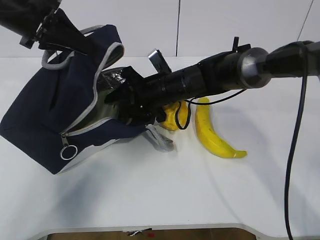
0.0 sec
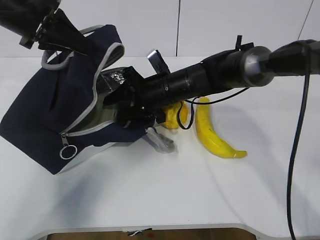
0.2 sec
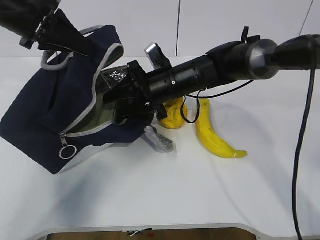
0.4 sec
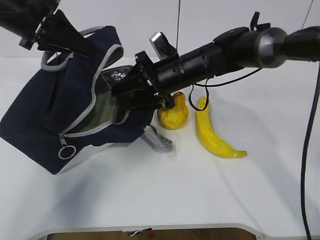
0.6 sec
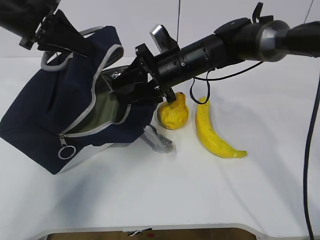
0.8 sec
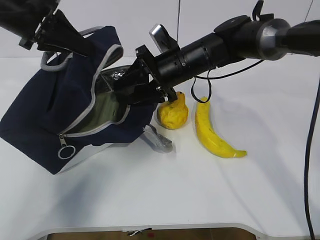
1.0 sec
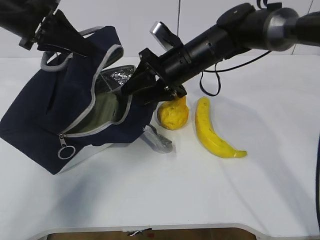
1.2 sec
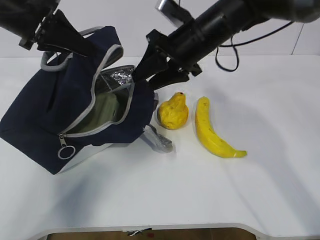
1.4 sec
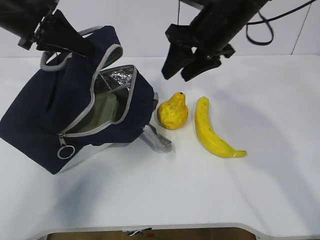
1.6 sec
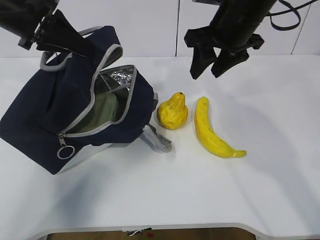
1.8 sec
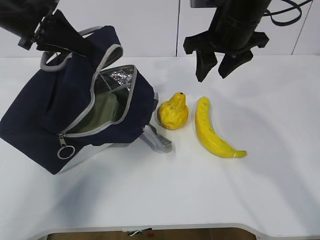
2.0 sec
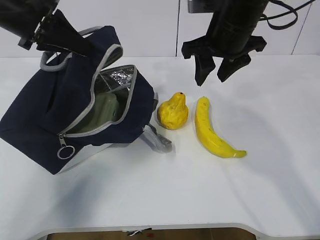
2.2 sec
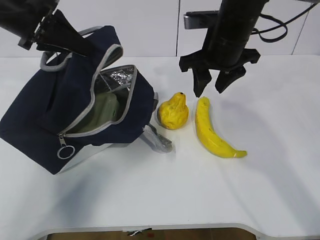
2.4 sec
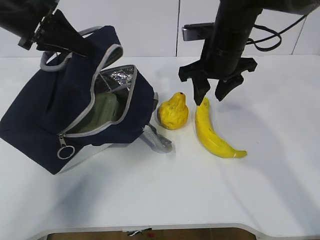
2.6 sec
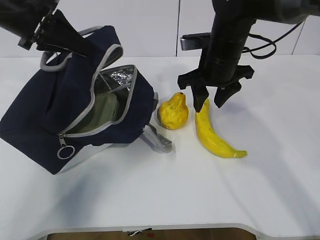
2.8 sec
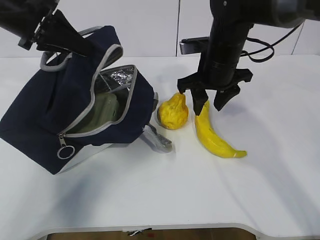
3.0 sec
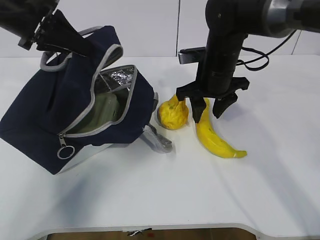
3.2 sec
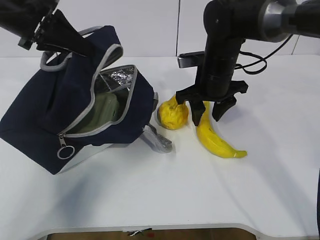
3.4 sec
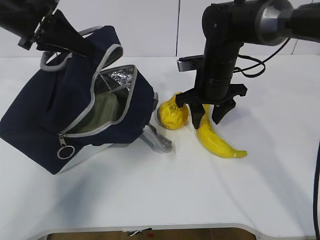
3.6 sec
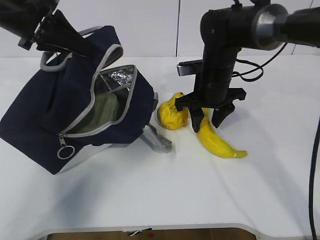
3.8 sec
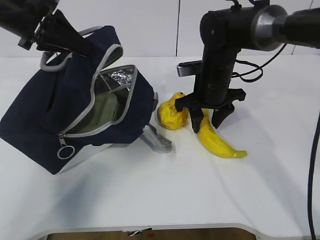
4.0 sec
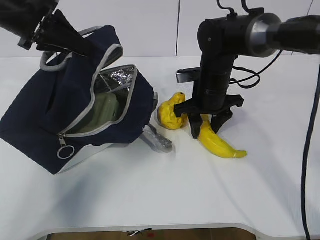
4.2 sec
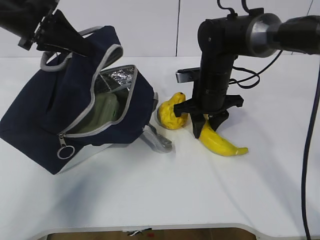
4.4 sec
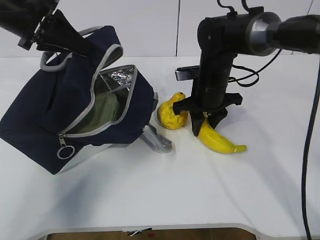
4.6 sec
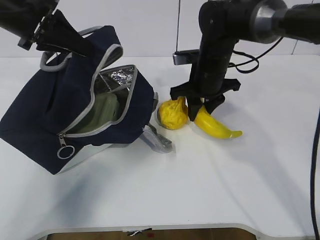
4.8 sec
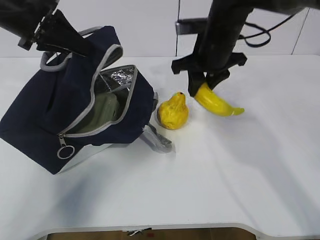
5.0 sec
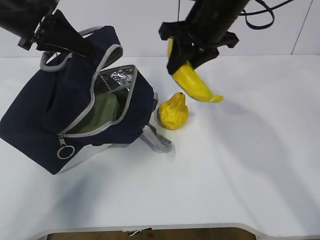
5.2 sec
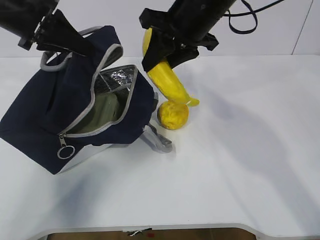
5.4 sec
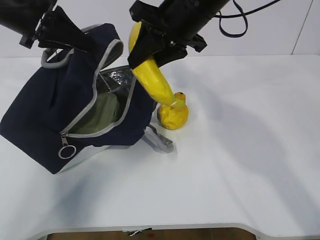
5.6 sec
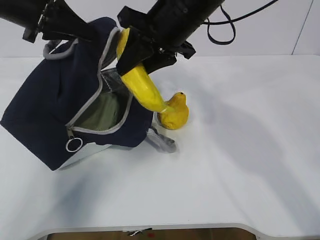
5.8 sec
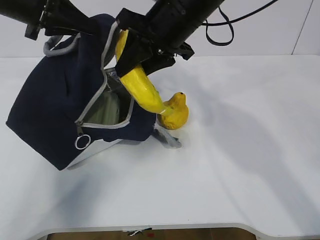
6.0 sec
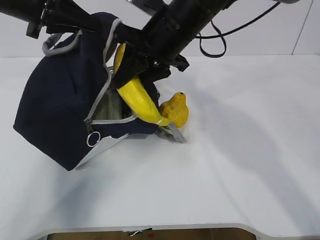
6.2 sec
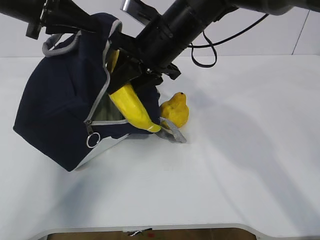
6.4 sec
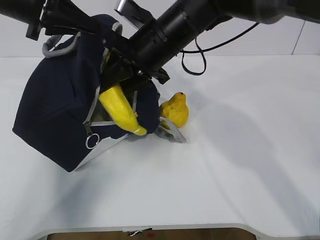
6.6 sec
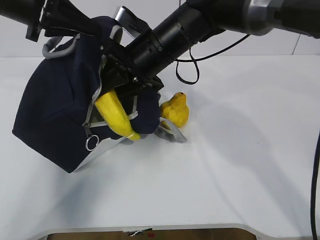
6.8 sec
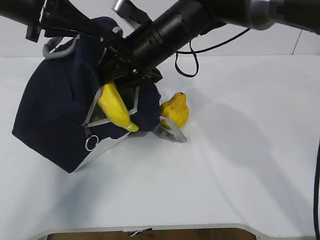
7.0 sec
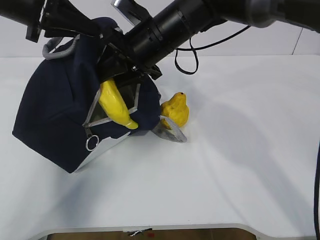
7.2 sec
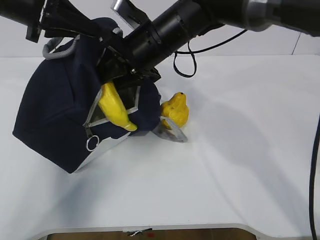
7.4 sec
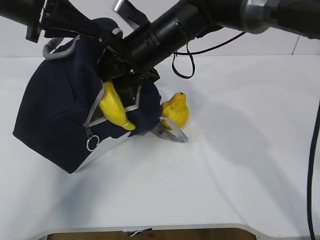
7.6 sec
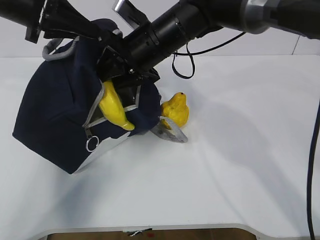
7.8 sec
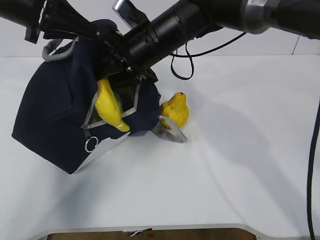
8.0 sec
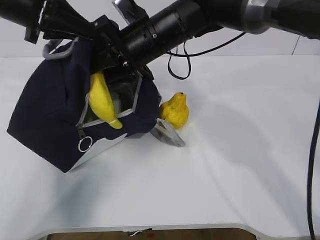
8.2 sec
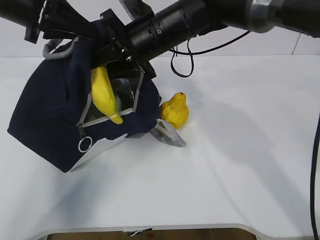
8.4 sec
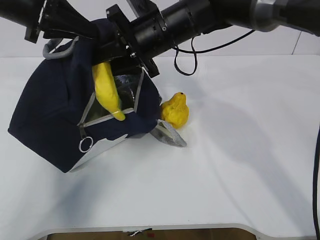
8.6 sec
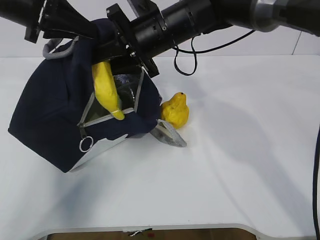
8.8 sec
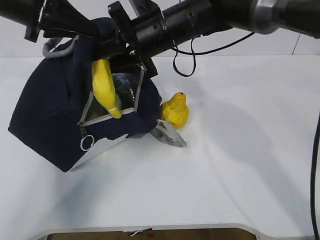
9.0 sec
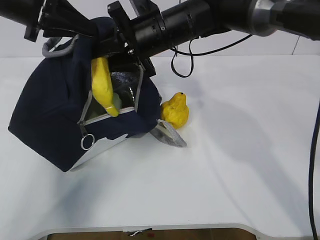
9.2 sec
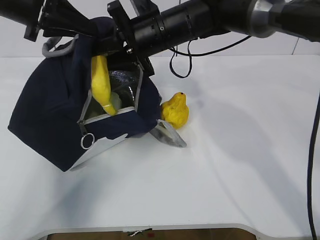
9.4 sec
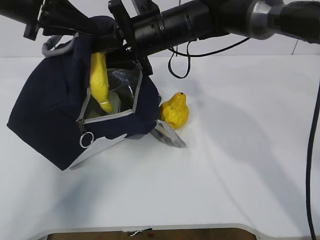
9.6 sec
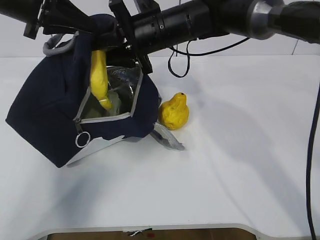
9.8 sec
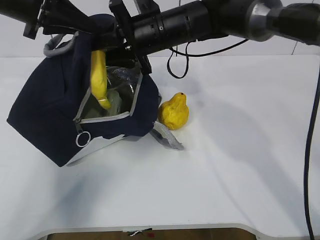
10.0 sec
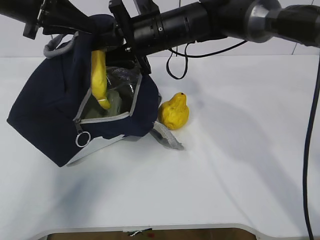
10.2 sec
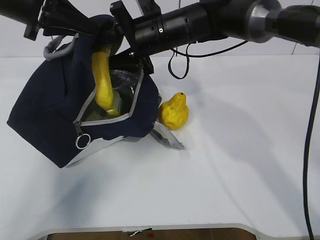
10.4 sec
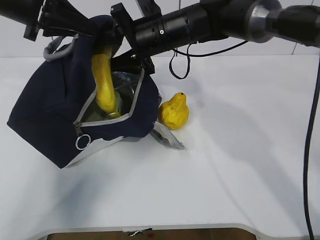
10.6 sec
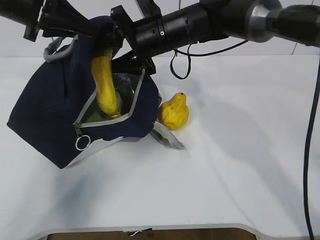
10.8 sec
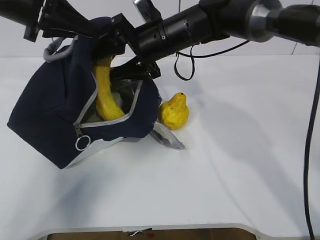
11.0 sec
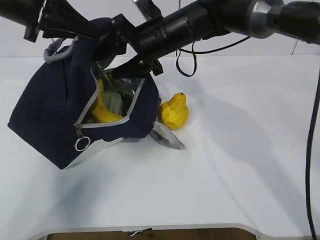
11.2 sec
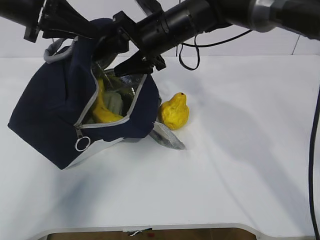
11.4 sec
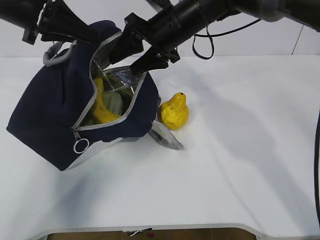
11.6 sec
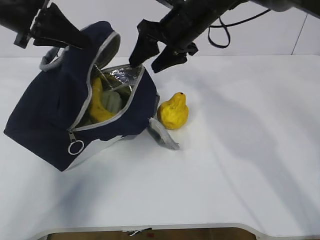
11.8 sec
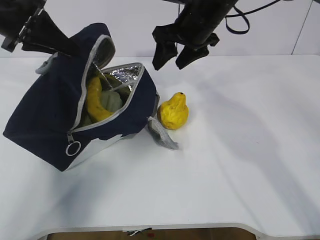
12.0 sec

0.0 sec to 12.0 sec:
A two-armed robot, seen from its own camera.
Step, 0.0 sec to 5.2 sec: Place it into the bag with your right hand.
Step, 5.4 sec to 8.2 sec: Grab the pear with your right hand.
Step, 8.4 sec to 9.8 sec: Secure the lunch bag with your left hand.
0.0 sec to 1.6 sec: The right gripper heads upward and to the right, covering about 15 cm.
1.6 sec to 3.0 sec: The right gripper travels downward by about 5 cm.
3.0 sec to 4.4 sec: The right gripper shifts approximately 5 cm downward.
4.4 sec to 6.0 sec: The right gripper goes approximately 15 cm upward and to the left.
6.0 sec to 7.6 sec: The right gripper travels downward by approximately 5 cm.
7.6 sec to 9.0 sec: The grippers stay close to where they were, moving slightly.
9.0 sec to 10.4 sec: The grippers move only a little.
10.4 sec to 12.0 sec: The right gripper goes roughly 5 cm to the right.

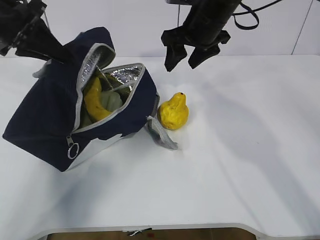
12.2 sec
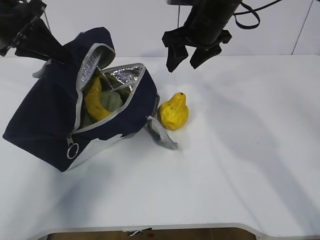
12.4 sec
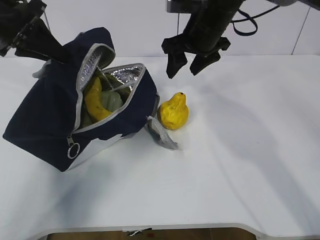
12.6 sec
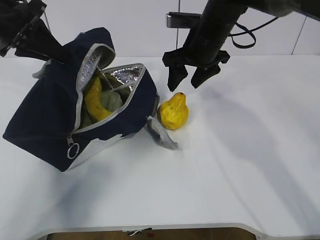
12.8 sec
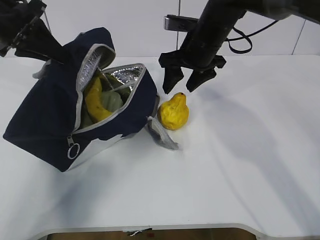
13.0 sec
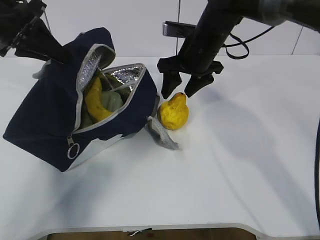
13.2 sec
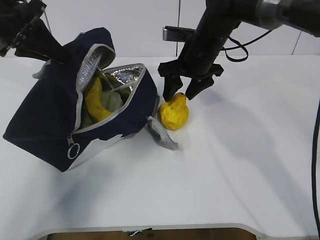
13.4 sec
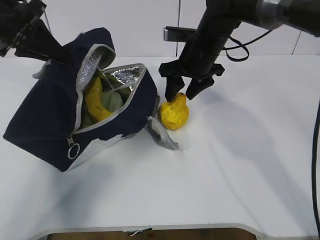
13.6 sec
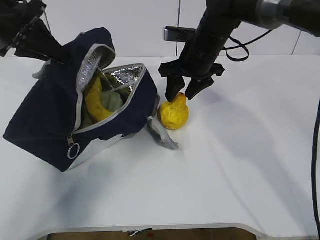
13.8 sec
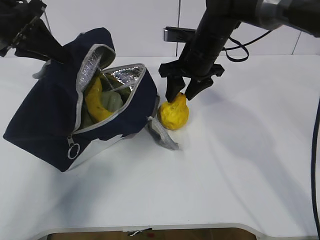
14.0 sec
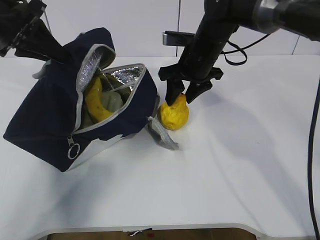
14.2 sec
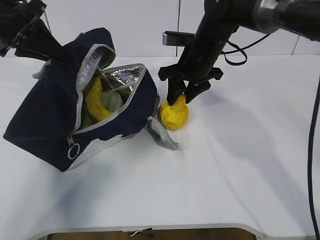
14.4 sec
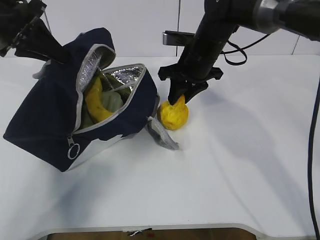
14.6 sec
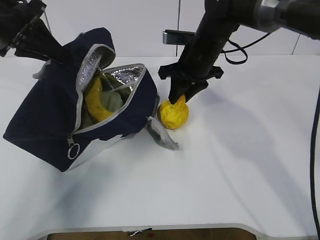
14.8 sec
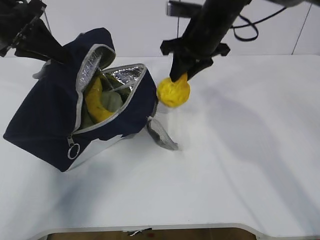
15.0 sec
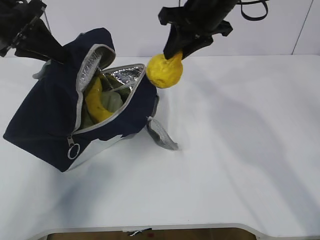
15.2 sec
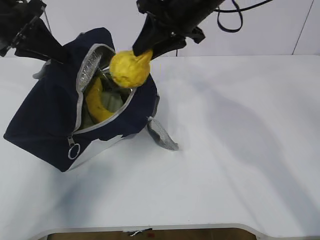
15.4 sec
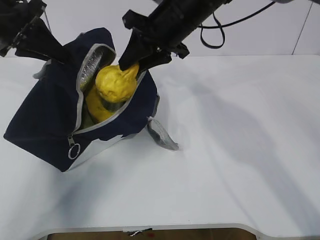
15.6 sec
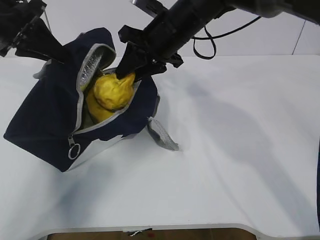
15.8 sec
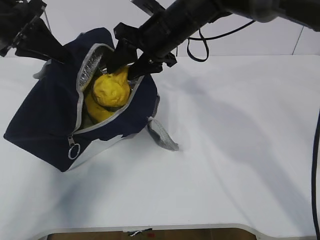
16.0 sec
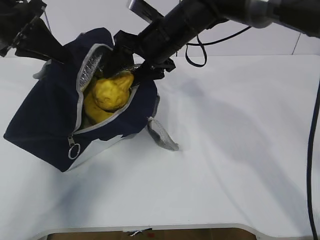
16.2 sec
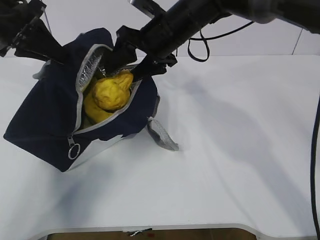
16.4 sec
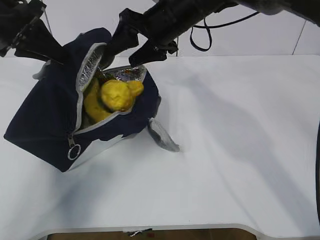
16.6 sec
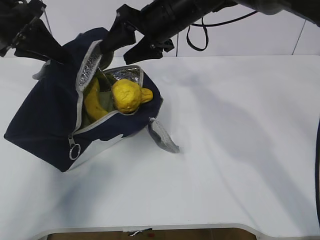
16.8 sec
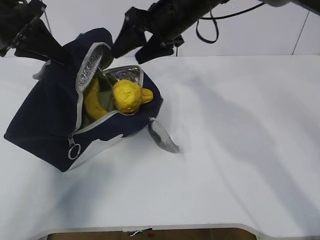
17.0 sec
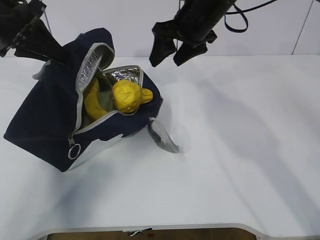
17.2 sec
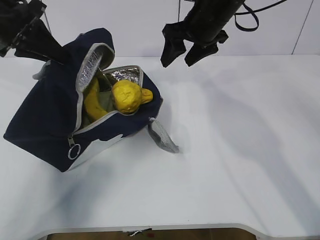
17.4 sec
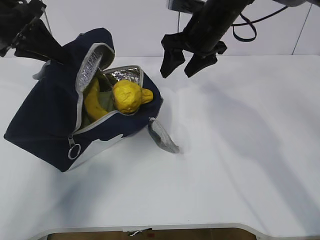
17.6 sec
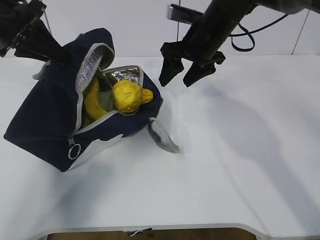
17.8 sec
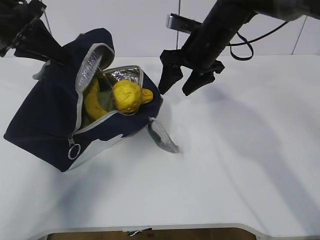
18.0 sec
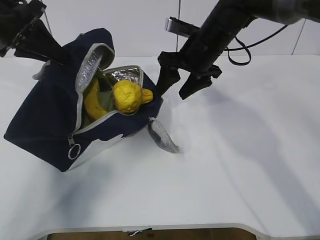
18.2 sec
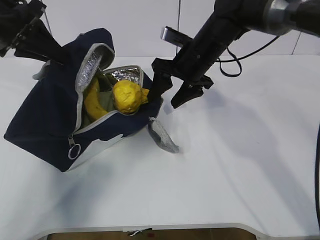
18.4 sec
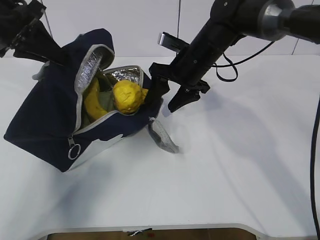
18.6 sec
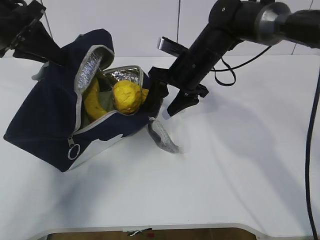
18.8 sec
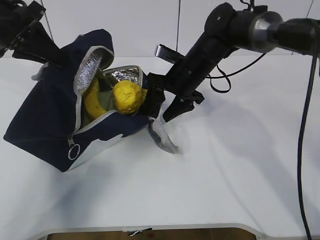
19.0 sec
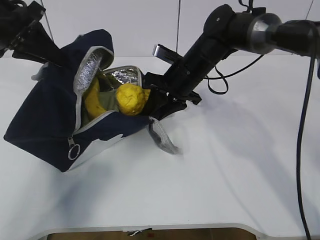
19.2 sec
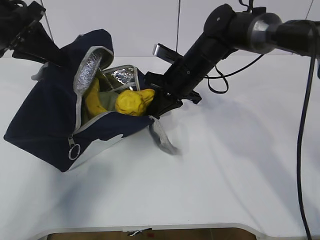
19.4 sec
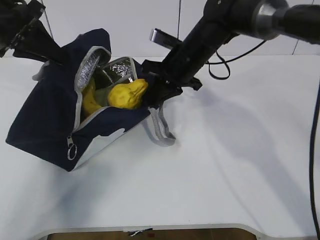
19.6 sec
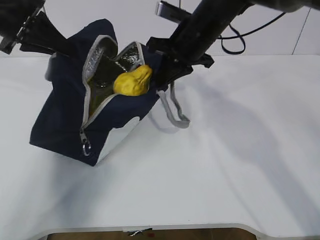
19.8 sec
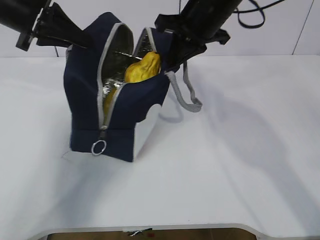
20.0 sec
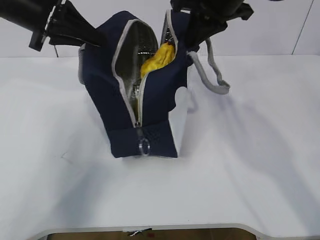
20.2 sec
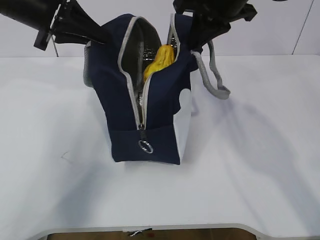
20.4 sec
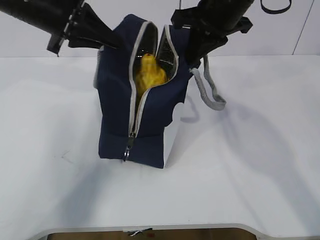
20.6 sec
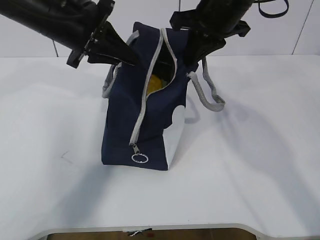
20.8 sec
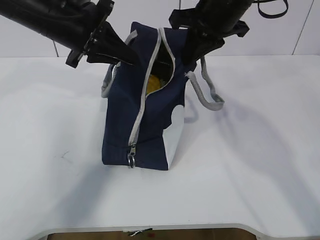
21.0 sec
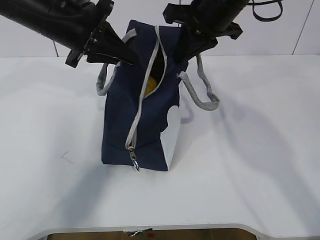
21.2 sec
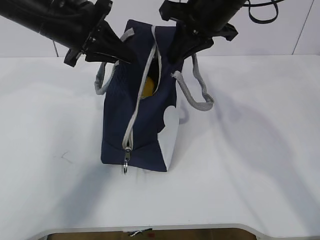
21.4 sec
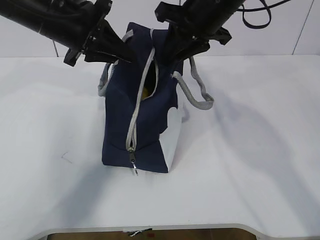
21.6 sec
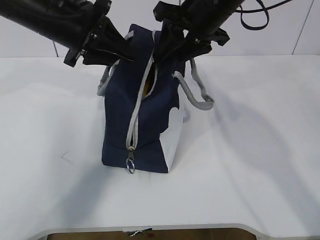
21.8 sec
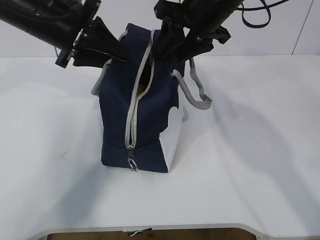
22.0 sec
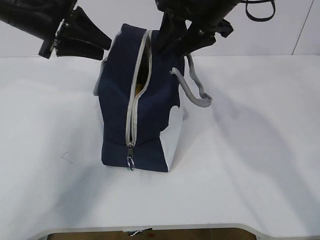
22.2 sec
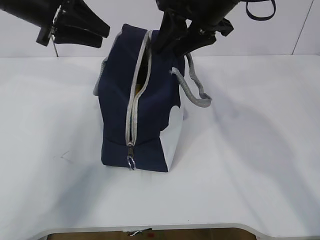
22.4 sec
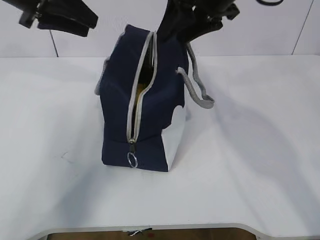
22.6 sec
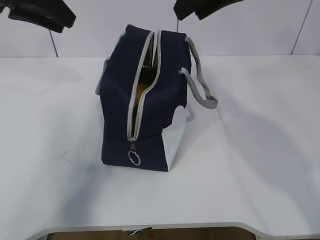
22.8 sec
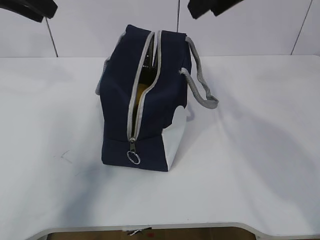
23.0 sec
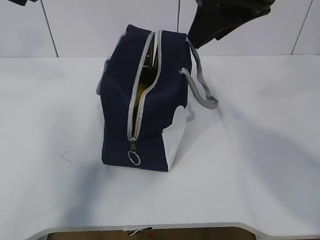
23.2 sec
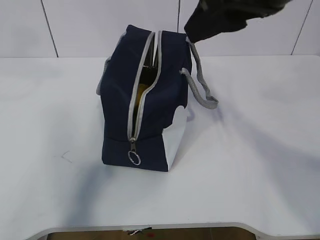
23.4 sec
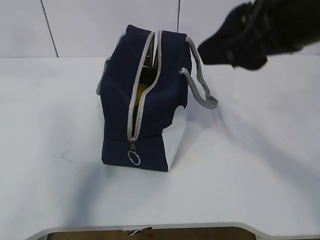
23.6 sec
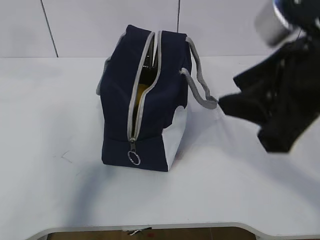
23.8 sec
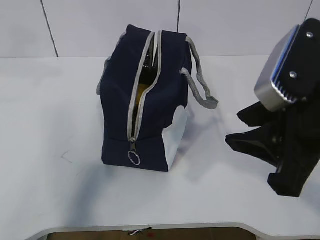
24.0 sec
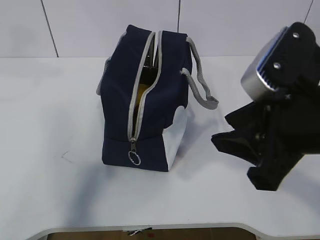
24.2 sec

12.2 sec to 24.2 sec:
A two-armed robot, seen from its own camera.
Step, 12.2 sec to 15.0 sec: Stand the lunch bag upright with your right hand.
12.2 sec to 13.8 sec: The right gripper travels downward by approximately 5 cm.
13.8 sec to 15.2 sec: The right gripper shifts approximately 10 cm upward, and closes.
15.2 sec to 16.6 sec: The right gripper shifts some 5 cm to the left, and opens its fingers.
16.6 sec to 18.2 sec: The right gripper travels to the right by about 5 cm.
18.2 sec to 19.8 sec: The right gripper reaches about 5 cm downward, then returns, and closes its fingers.
19.8 sec to 21.2 sec: The left gripper goes approximately 10 cm to the right; the right gripper moves upward, roughly 5 cm.
21.2 sec to 22.6 sec: The left gripper heads to the left and upward, covering some 10 cm, and opens its fingers, while the right gripper opens up.
22.6 sec to 24.2 sec: The right gripper heads backward, covering about 20 cm, while the left gripper shifts roughly 15 cm upward and backward.
